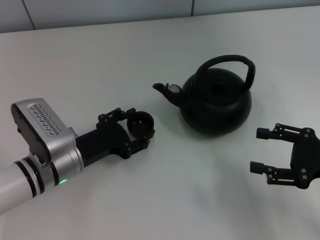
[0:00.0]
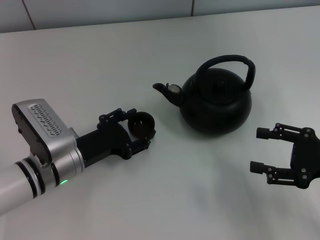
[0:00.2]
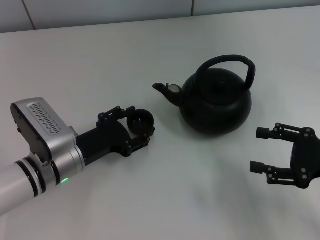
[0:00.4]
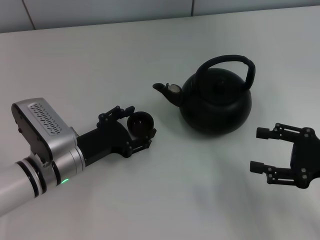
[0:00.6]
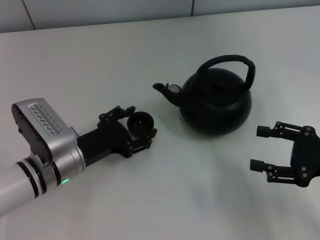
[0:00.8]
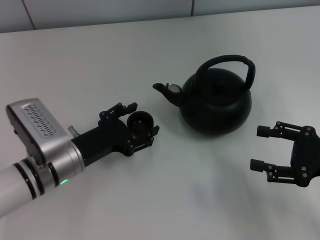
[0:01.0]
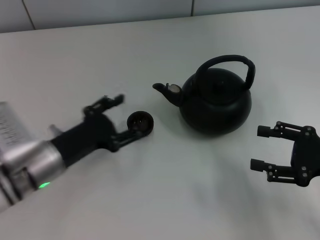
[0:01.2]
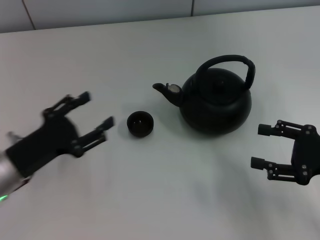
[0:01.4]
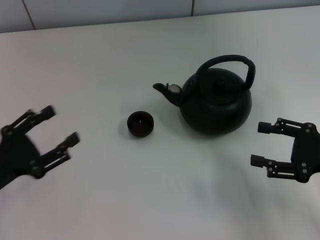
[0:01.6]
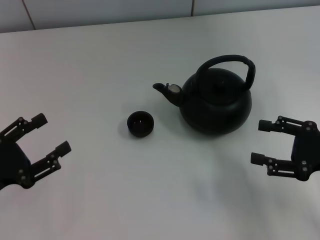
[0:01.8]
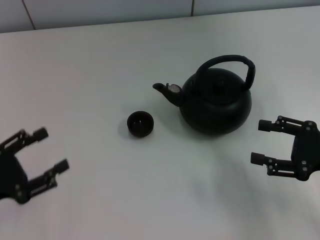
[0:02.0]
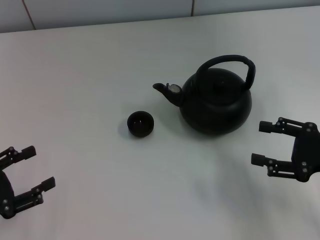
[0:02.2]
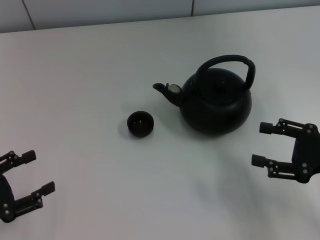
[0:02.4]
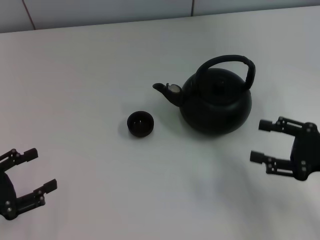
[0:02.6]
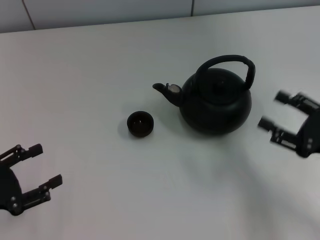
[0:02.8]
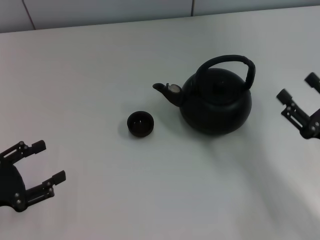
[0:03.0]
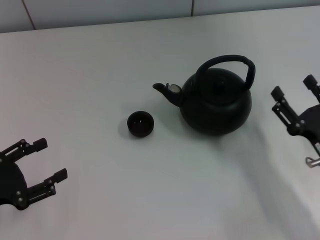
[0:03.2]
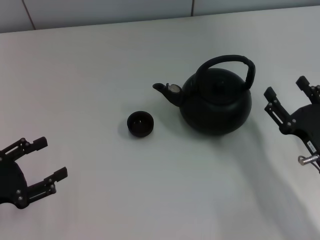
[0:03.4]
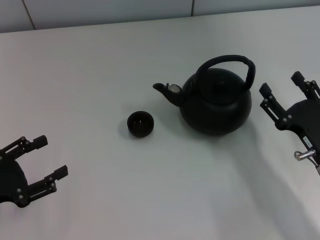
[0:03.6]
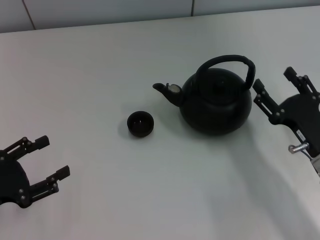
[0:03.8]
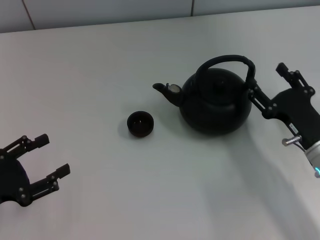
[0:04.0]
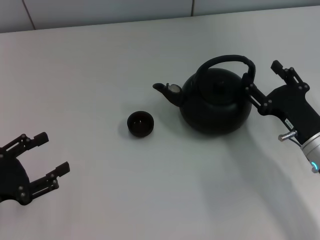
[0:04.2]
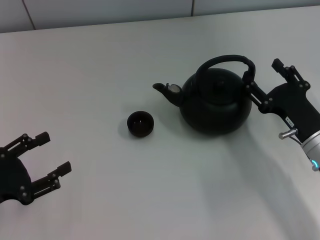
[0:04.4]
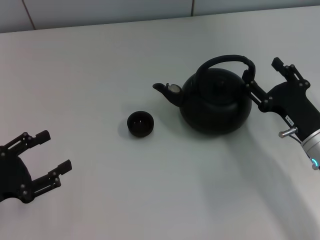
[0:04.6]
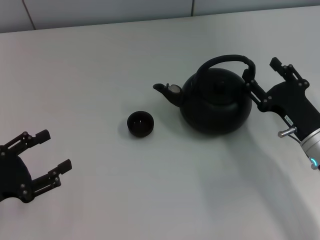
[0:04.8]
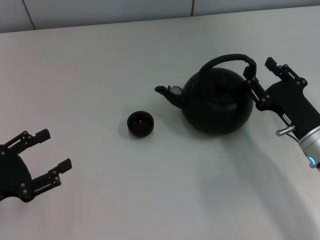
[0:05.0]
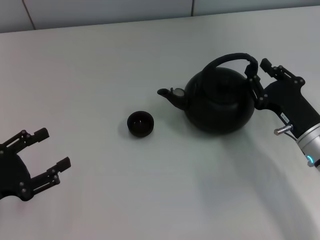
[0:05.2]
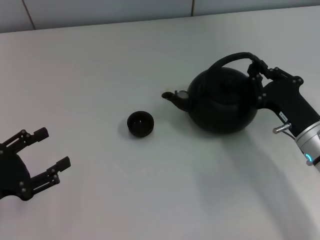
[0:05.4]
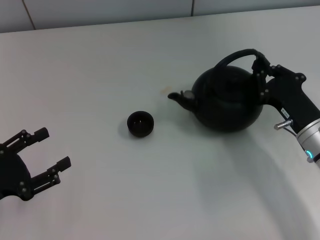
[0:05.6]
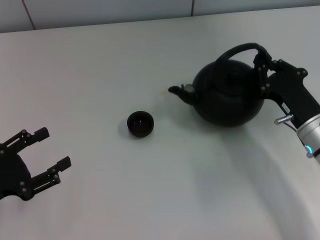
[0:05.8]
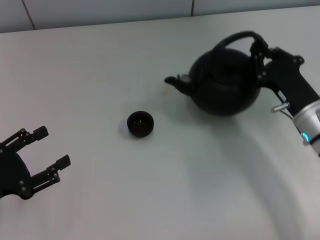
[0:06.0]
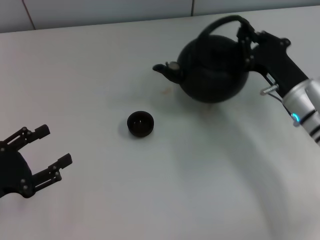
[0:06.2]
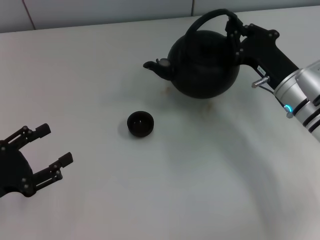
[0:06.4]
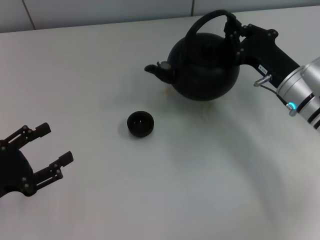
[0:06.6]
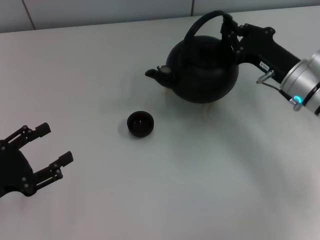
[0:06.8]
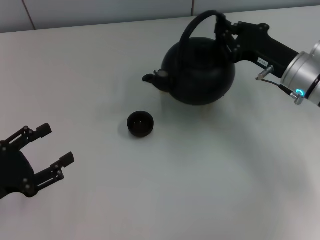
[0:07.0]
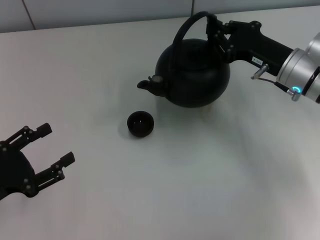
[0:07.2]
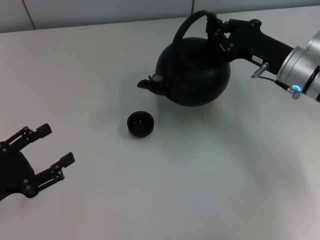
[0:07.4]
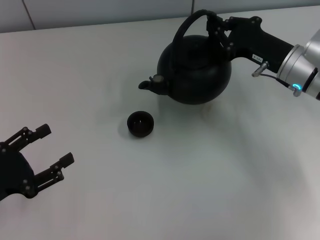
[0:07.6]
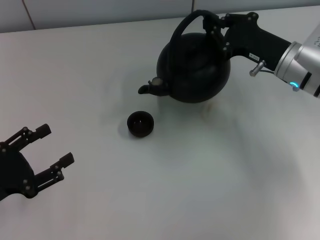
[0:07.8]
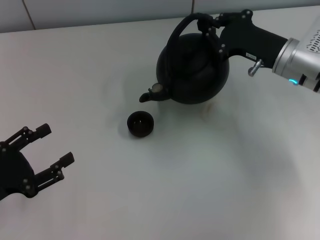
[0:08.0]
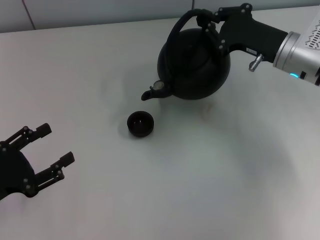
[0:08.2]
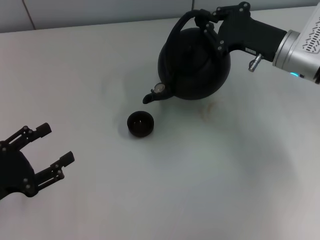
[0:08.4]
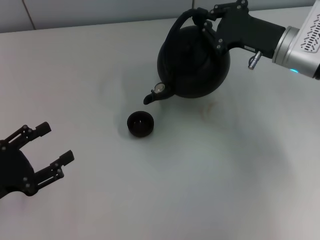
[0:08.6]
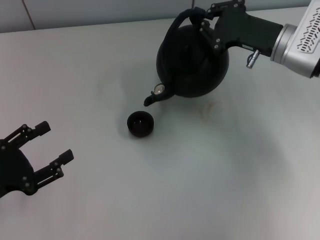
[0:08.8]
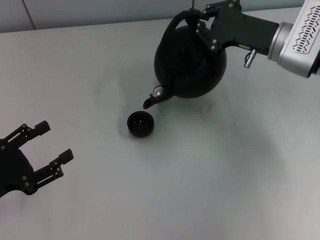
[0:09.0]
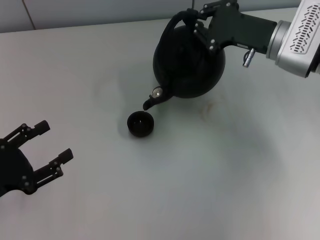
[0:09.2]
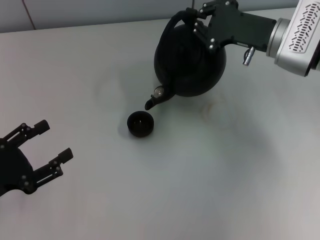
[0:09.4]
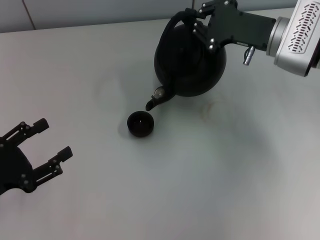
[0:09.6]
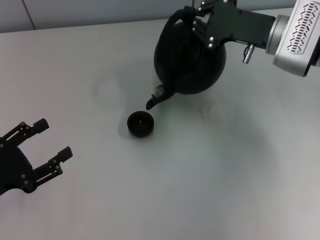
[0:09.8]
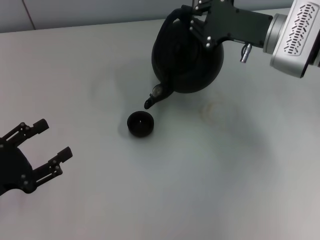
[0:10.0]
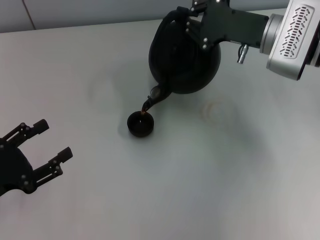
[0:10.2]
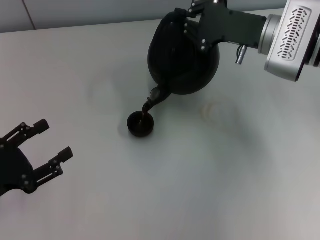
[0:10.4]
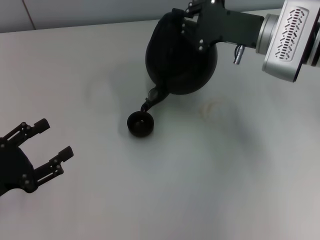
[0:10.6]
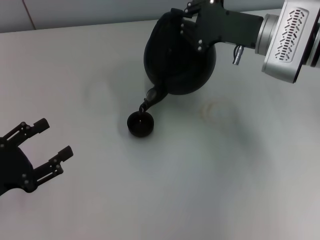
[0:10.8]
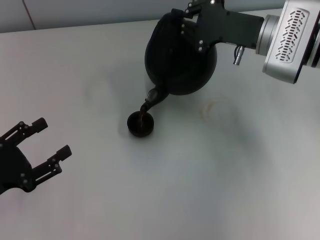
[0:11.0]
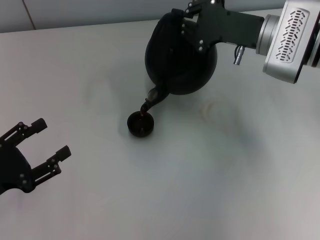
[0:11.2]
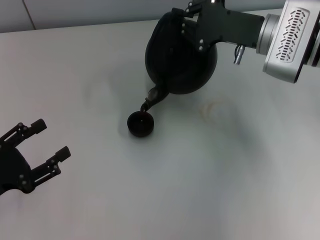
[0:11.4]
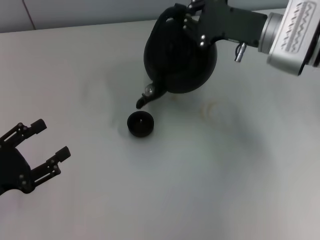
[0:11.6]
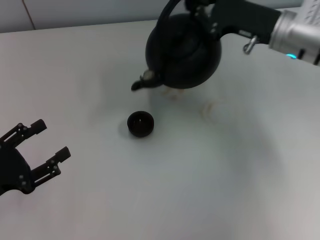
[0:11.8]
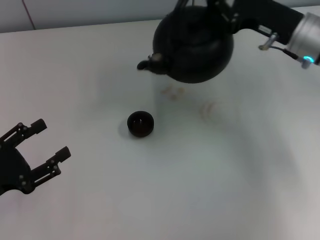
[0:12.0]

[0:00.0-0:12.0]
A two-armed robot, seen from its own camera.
Task of the whole recording: Grasp the handle of the teapot with one hand and pour tea into the teacup.
Step, 0:01.4 to 0:06.0: Pick up the teapot with the right gripper.
0:00.0 to 0:01.6: The left gripper goes approximately 15 cm to the left and backward.
0:01.6 to 0:03.0: The right gripper moves about 5 cm.
0:03.0 to 0:04.4: The right gripper shifts roughly 5 cm forward.
0:04.4 to 0:06.0: The right gripper closes.
0:06.0 to 0:07.6: The right gripper moves forward and upward, approximately 10 cm.
0:09.0 to 0:10.4: The grippers move only a little.

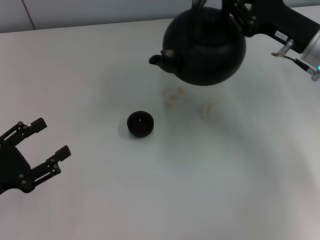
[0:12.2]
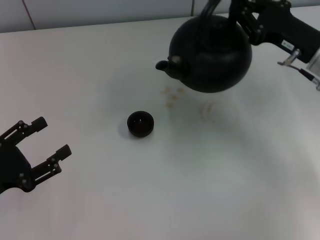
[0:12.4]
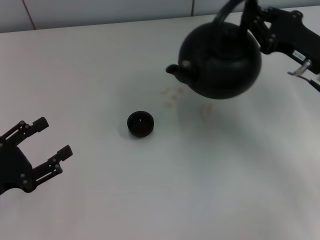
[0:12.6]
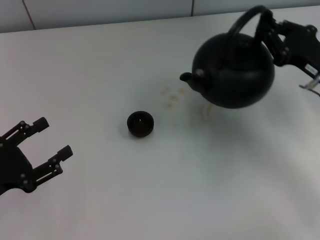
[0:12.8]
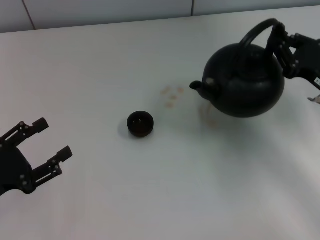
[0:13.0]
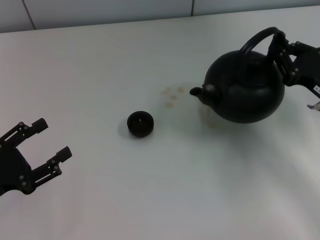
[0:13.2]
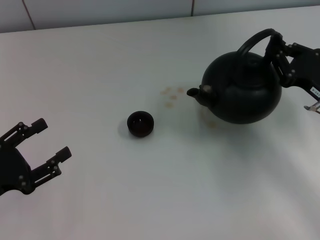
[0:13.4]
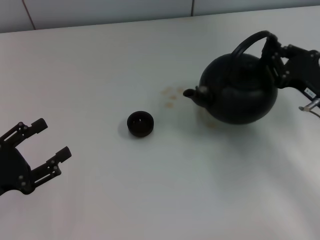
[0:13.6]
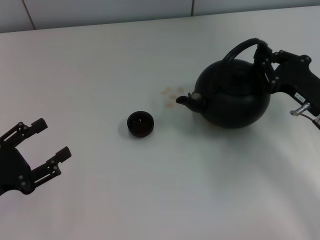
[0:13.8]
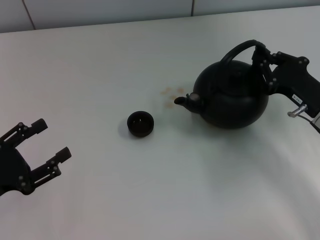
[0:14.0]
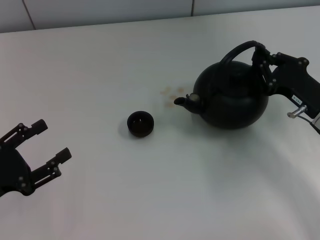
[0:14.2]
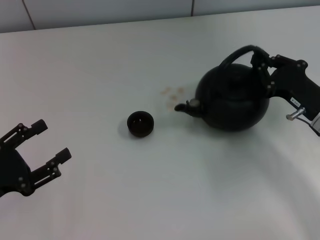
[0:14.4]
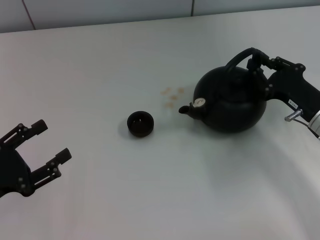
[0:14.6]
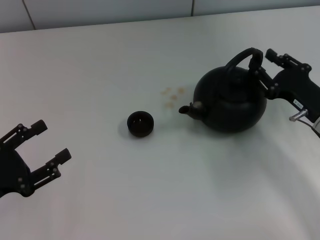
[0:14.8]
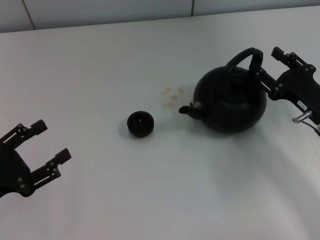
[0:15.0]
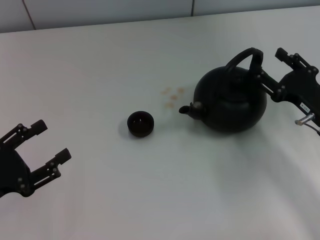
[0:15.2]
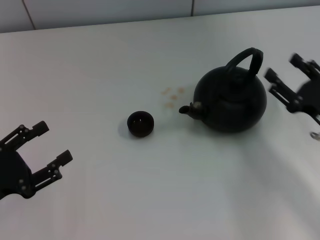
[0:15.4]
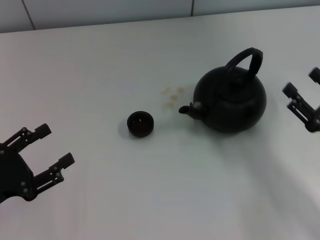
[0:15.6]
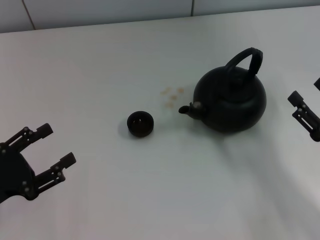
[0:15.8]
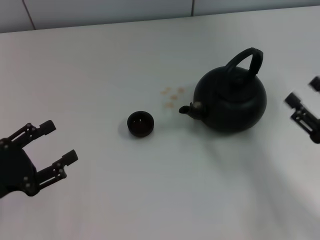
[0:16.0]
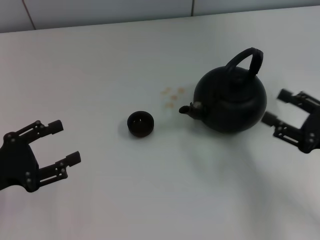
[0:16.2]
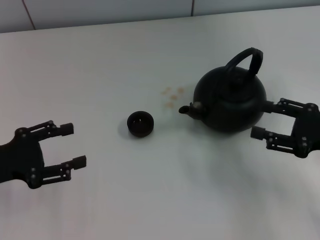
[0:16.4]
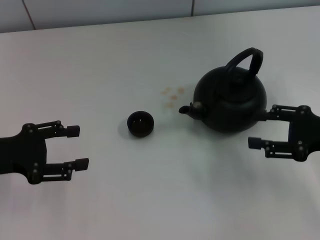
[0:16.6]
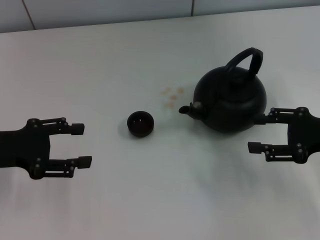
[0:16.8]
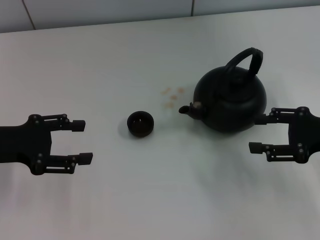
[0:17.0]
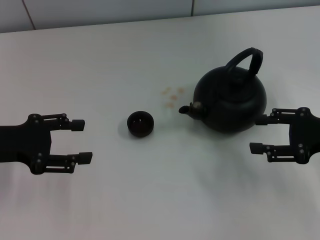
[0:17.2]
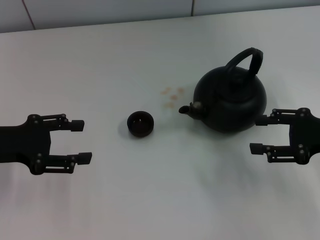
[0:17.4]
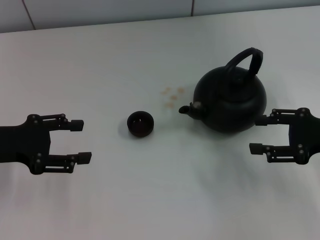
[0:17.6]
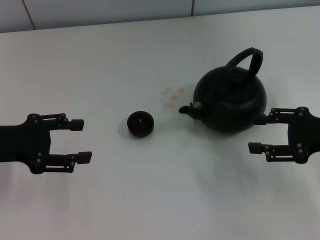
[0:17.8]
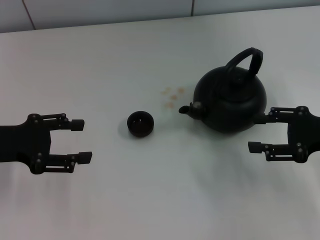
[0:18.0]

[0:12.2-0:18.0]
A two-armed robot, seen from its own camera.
Task of the whole recording: Grasp the handle of the teapot with one hand and pour tea into the teacup.
Step, 0:12.2 to 0:15.4: Put down the teapot with the right gripper.
0:12.2 to 0:13.6: The right gripper is displaced backward and downward by approximately 10 cm.
0:13.6 to 0:15.0: The right gripper opens up.
0:15.0 to 0:16.6: The left gripper moves forward, roughly 10 cm; the right gripper travels upward by approximately 5 cm, and reaches some 10 cm backward, then returns.
0:16.6 to 0:18.0: There are only small adjustments of the grippers.

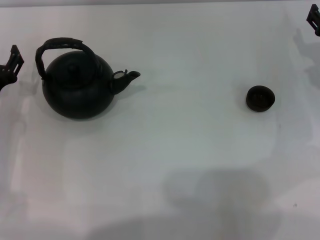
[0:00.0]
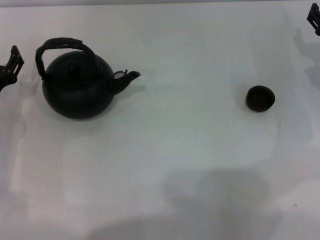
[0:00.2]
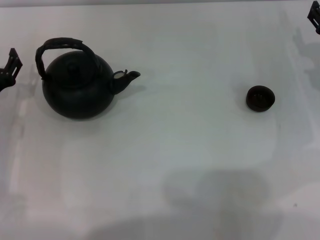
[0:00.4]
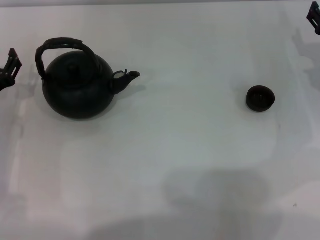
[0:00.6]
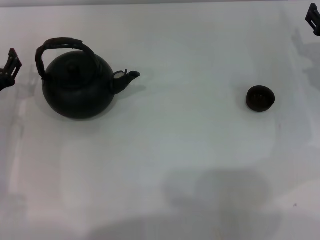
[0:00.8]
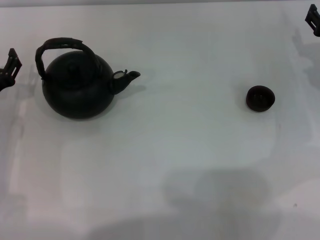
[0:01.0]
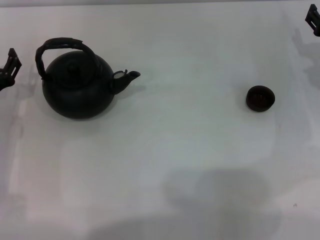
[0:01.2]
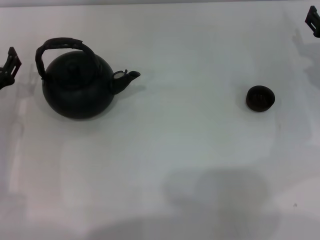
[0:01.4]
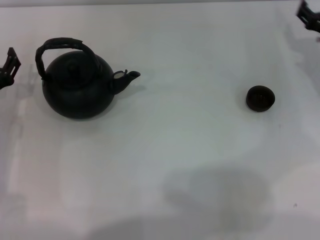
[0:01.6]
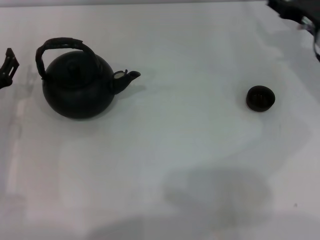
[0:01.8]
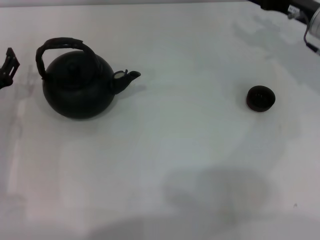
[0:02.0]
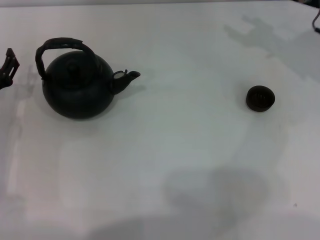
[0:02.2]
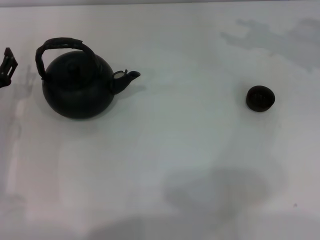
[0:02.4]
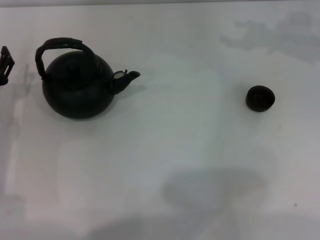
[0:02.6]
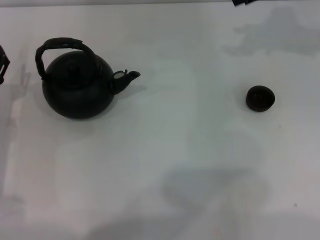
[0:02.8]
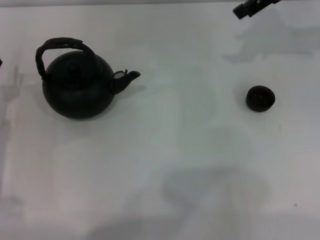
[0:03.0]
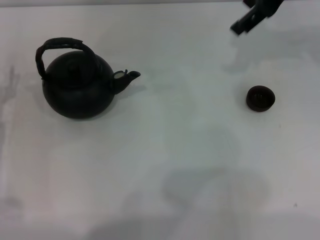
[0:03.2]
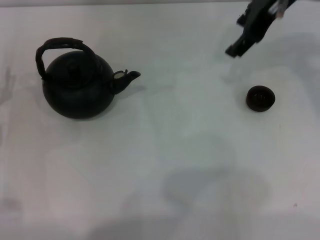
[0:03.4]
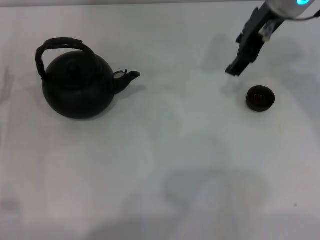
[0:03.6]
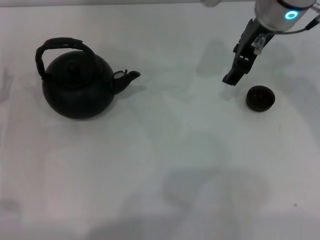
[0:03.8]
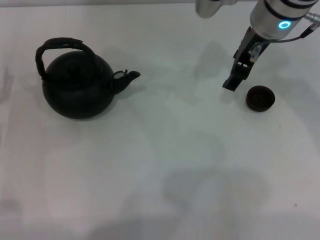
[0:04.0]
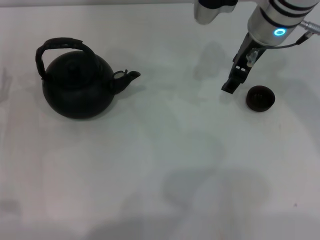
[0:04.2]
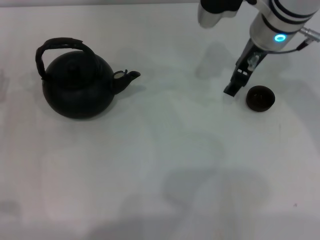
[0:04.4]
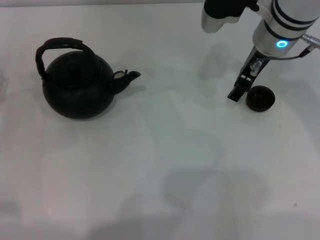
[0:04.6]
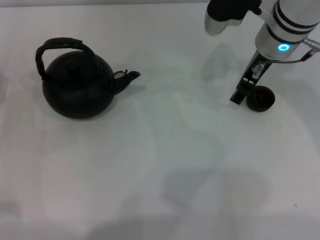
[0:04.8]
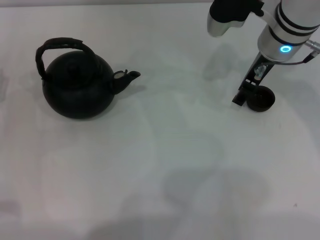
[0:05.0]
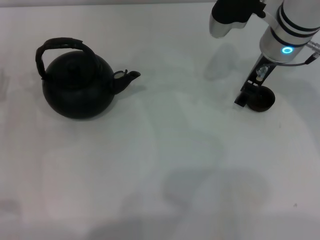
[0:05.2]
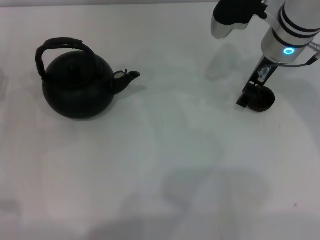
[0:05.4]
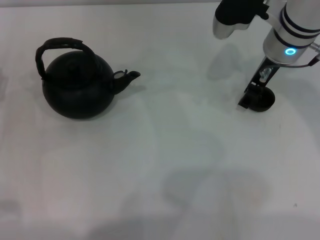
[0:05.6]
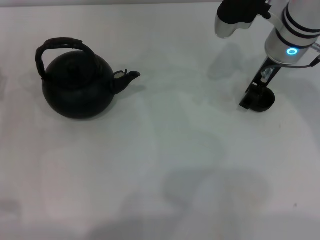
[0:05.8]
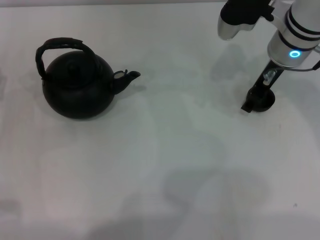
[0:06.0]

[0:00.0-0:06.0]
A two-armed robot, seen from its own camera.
Task of the whole recording: Grasp the handle of the teapot with one hand and pour tea into the teacup.
0:00.0 to 0:01.6: The grippers stay close to where they were, moving slightly.
0:01.6 to 0:03.0: The right gripper moves upward, roughly 20 cm.
0:03.0 to 0:04.4: The right gripper heads downward and to the left, covering about 15 cm.
0:04.4 to 0:06.0: There are only small adjustments of the grippers.
